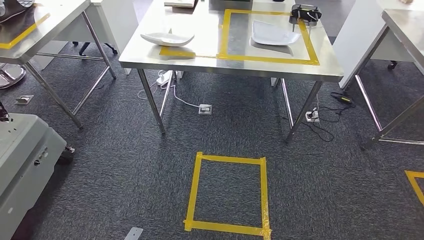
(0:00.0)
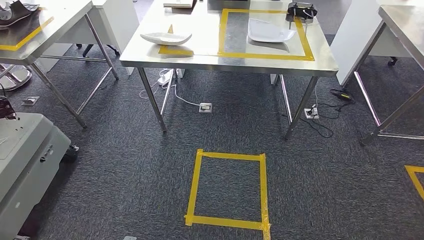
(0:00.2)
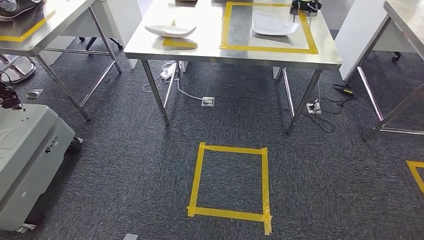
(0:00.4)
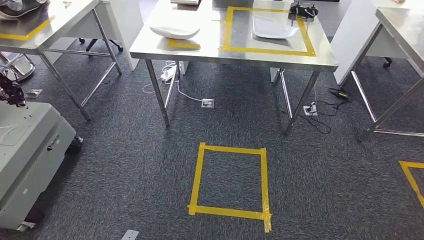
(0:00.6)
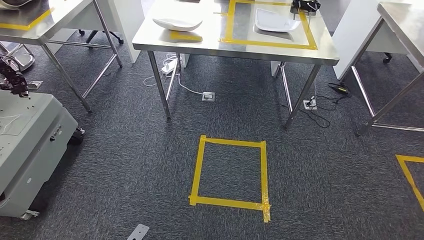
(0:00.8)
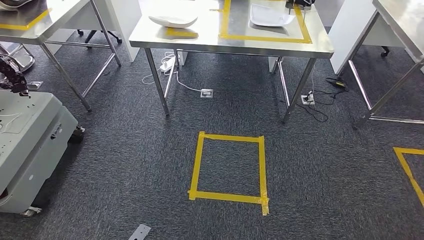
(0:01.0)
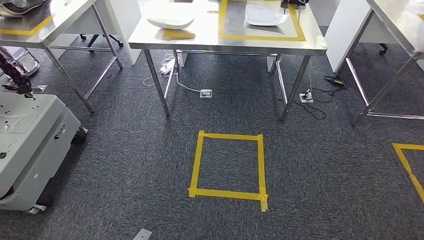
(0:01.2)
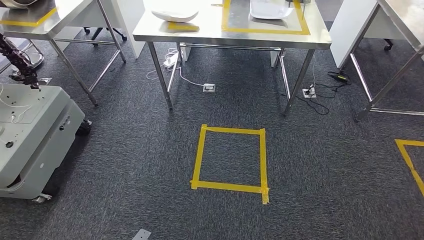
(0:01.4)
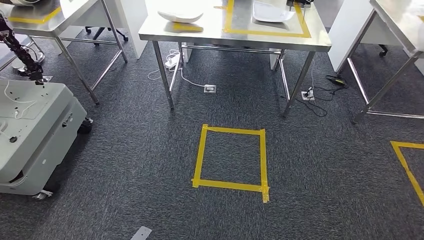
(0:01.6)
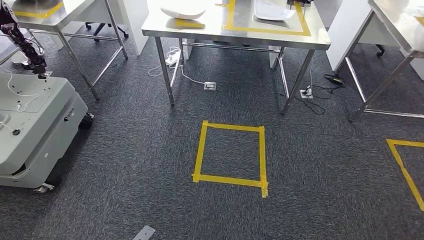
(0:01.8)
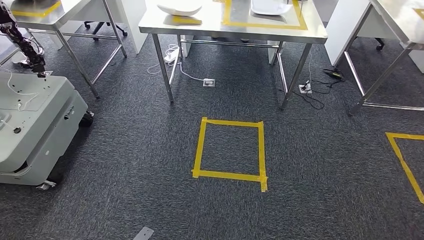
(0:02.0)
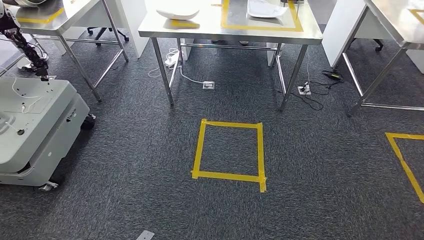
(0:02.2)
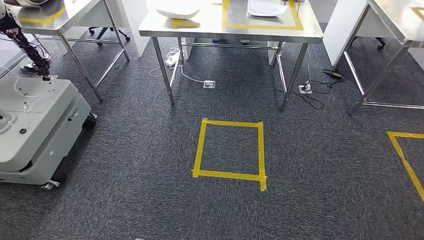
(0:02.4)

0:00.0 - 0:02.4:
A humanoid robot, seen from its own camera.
Step, 0:00.0 - 0:02.2: Return to the initial position at the workbench.
